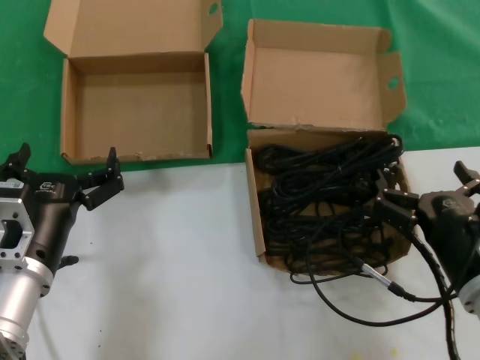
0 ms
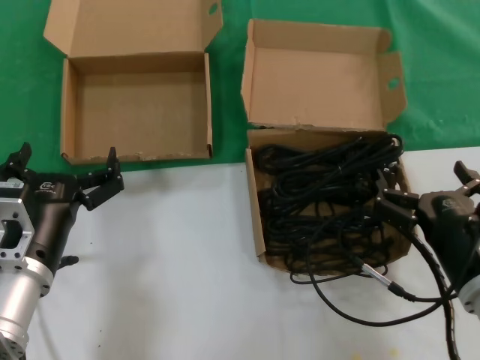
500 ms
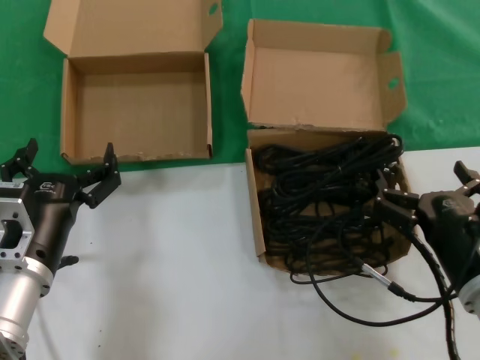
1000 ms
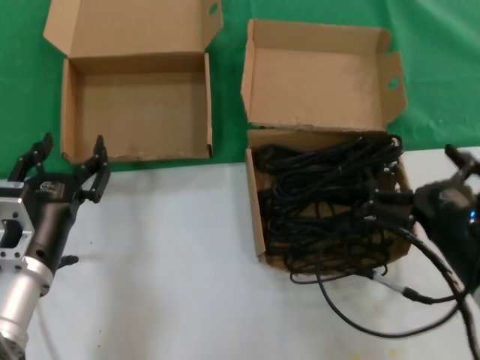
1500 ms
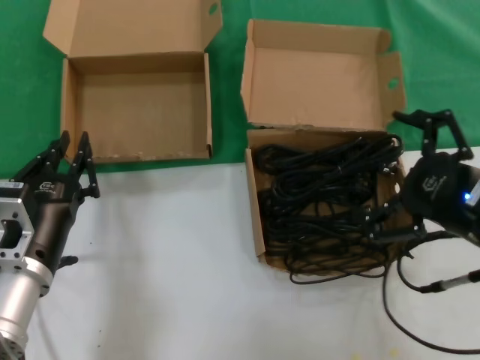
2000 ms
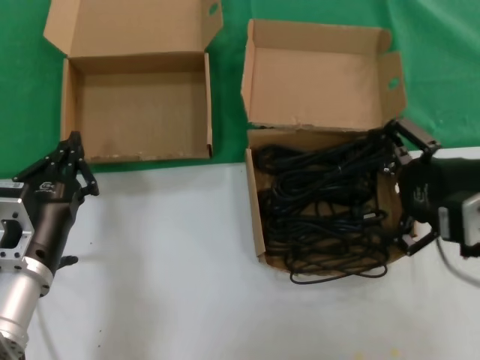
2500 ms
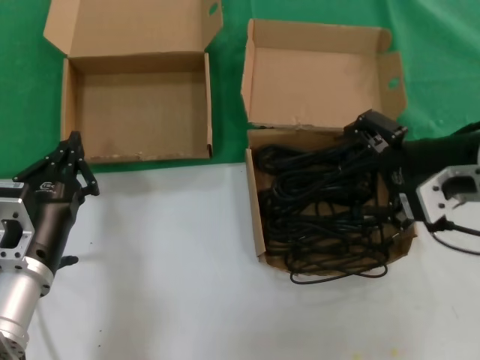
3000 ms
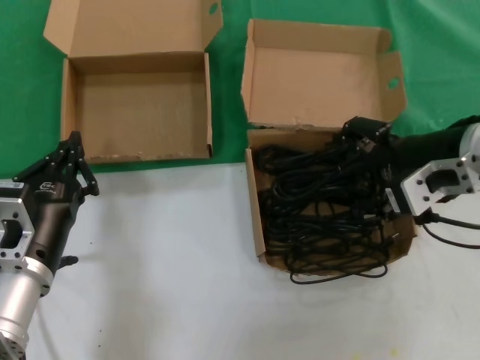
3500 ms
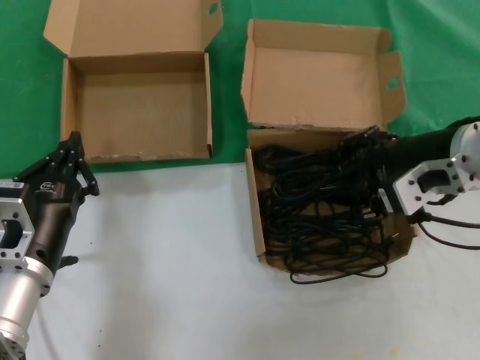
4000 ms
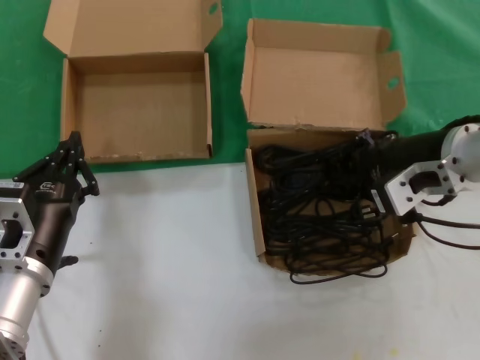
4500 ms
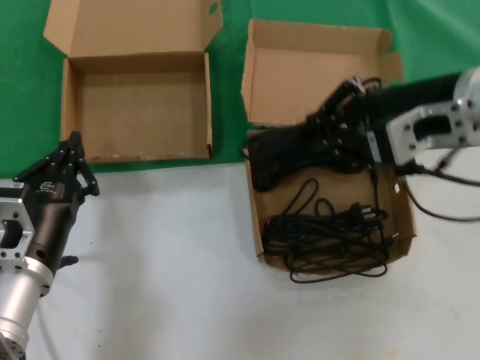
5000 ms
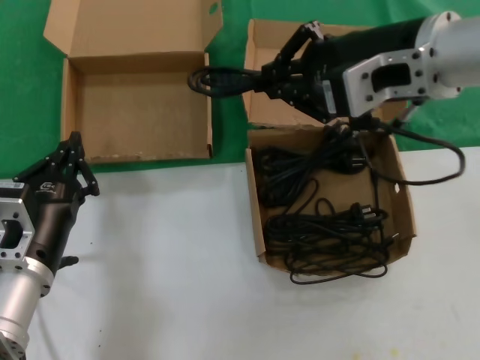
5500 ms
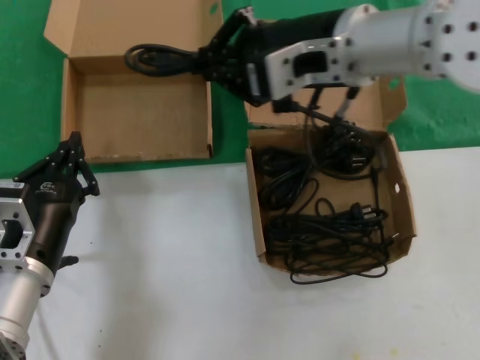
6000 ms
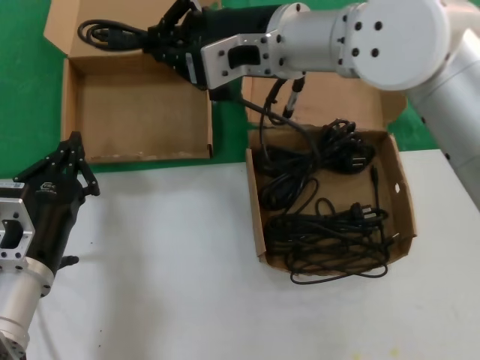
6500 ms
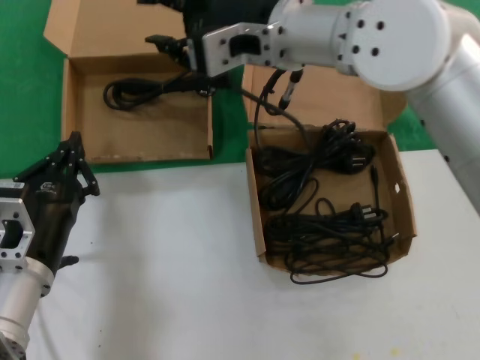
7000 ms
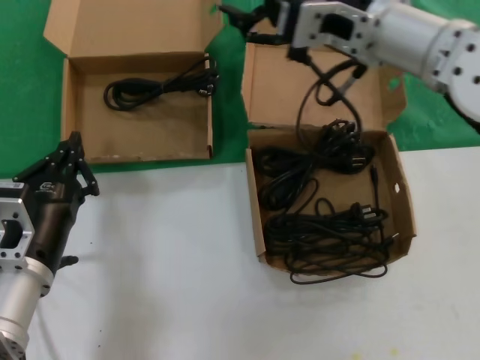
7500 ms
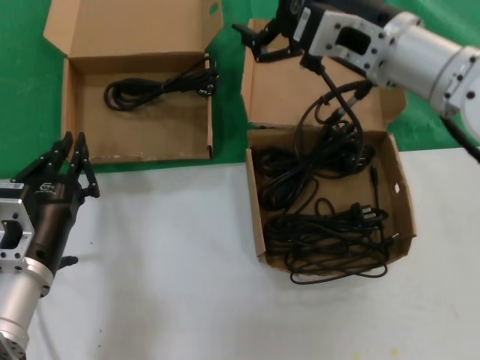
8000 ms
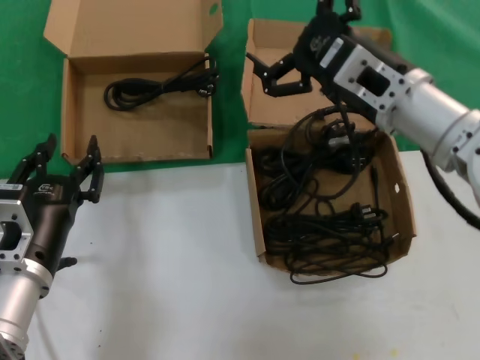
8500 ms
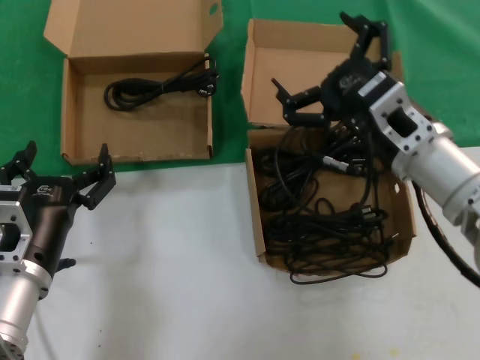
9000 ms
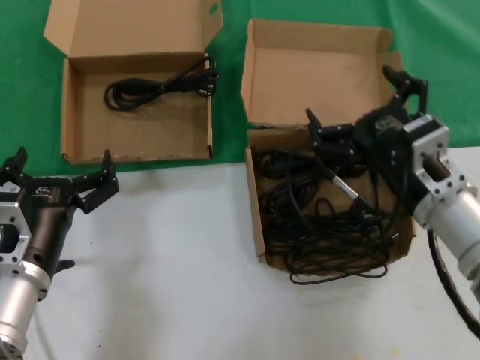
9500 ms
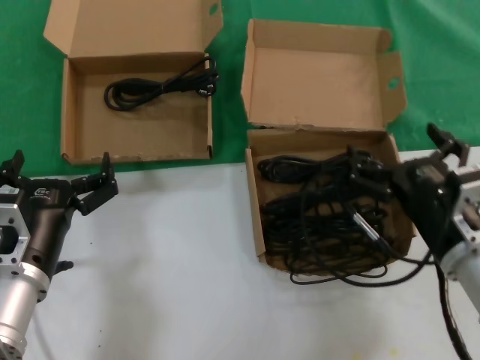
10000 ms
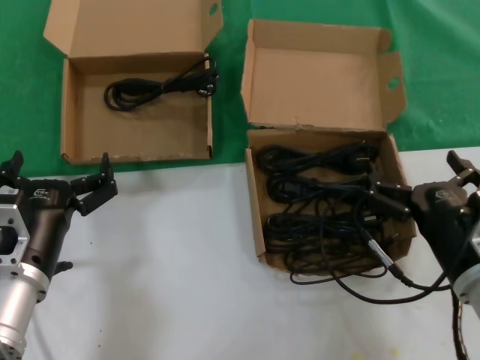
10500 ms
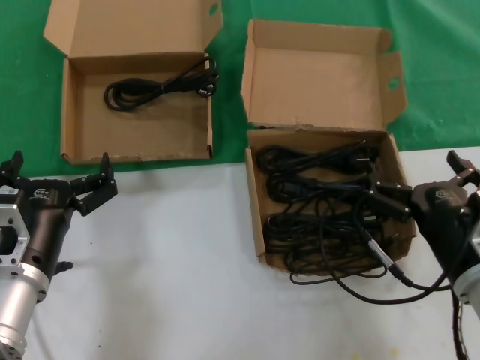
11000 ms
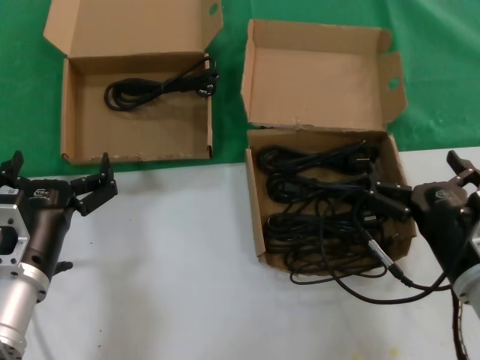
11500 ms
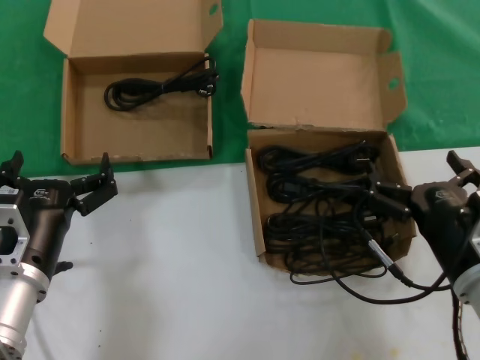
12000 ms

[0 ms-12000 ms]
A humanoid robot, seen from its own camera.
Task of the whole recording: take the parts from the box containing them and put them into an empty box.
Step, 0 ms to 4000 ms: Grasp the data cable.
Step, 4500 ms to 6500 ms: Place the data cable in the another box.
0 ms to 2000 ms: The right hand heads upward, covering approximately 15 cm.
2000 ms to 4000 ms: The right hand travels forward and upward by about 15 cm.
4000 ms to 6000 ms: The right hand goes approximately 15 cm to the left and upward.
6000 ms to 8000 ms: The right hand travels downward by about 5 cm.
8000 ms to 10000 ms: The right hand goes about 25 cm downward and backward.
10000 ms to 12000 ms: There are only small adjustments of the hands.

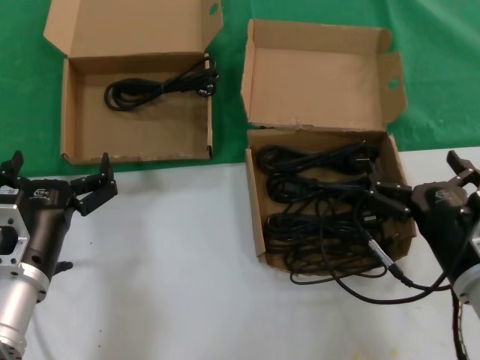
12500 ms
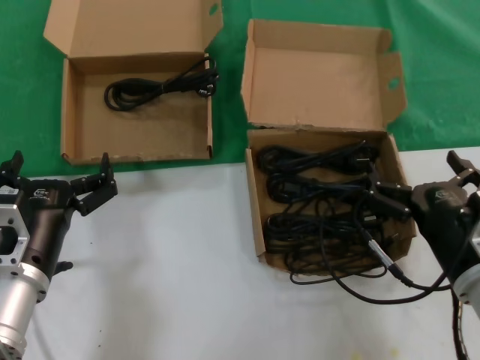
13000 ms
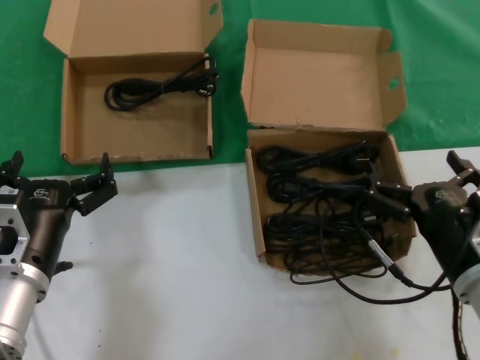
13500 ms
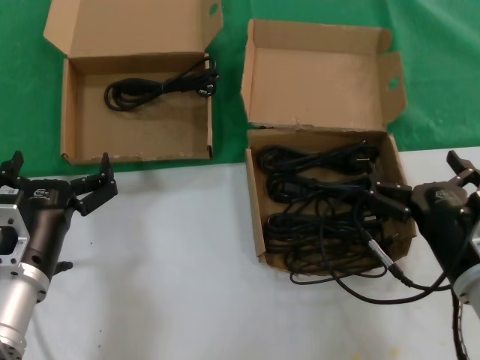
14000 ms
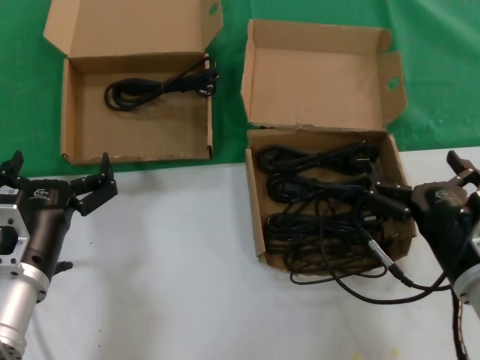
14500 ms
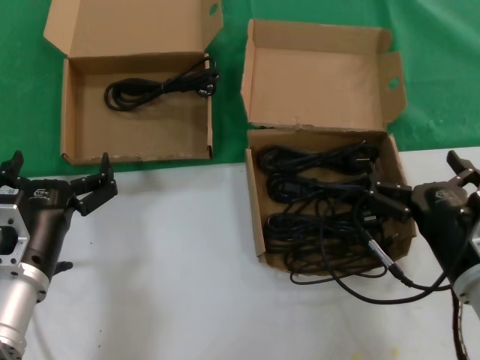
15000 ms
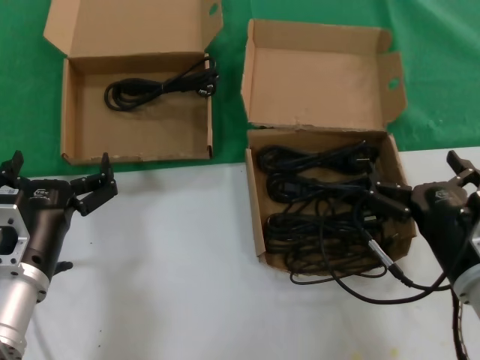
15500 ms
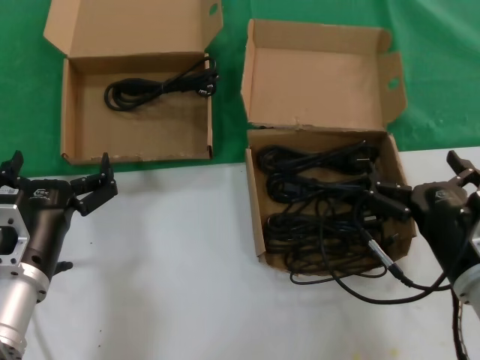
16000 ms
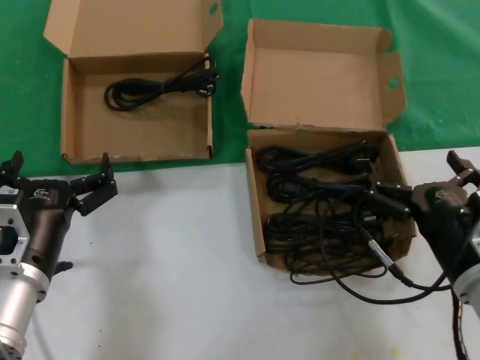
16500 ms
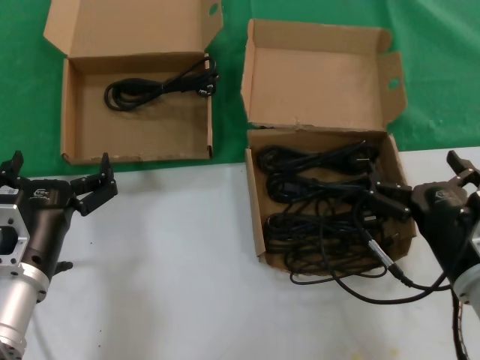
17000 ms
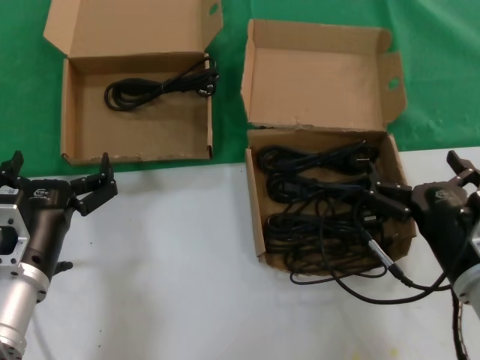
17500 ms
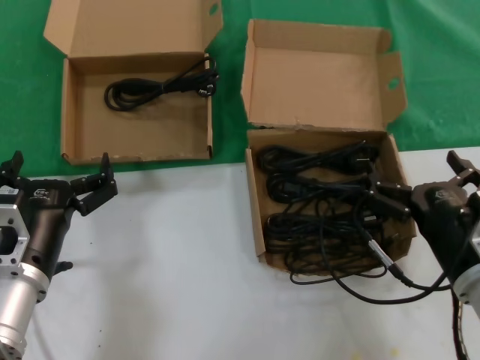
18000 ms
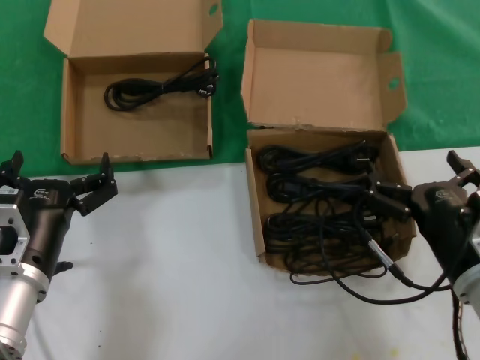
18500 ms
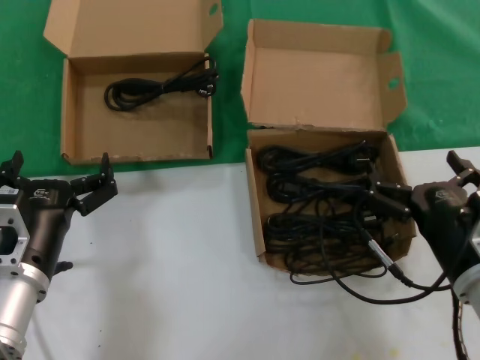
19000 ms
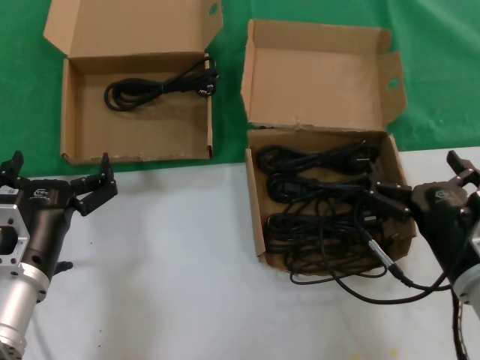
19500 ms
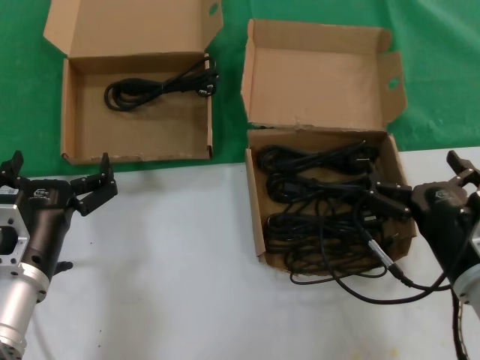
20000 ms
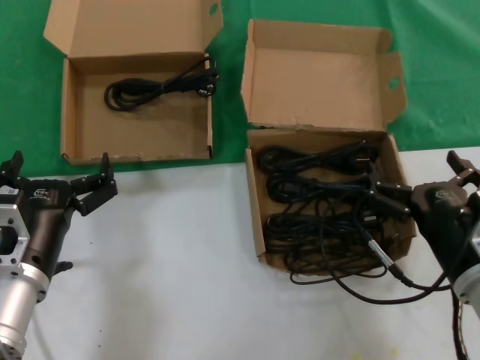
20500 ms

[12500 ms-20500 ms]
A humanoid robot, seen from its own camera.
Task of the whole recording: take the parts from the box containing them and put them into an empty box.
12500 ms to 20500 ms: Both hands stay about where they are.

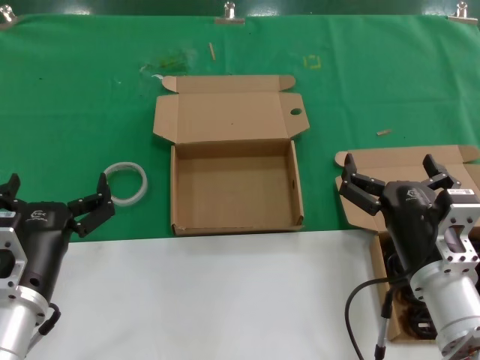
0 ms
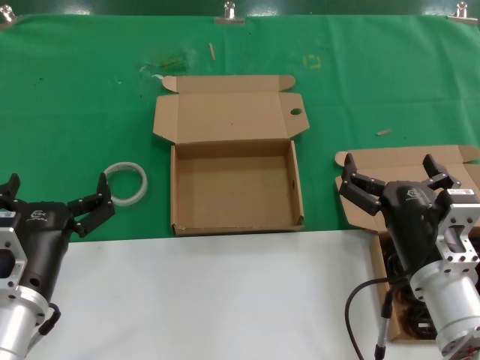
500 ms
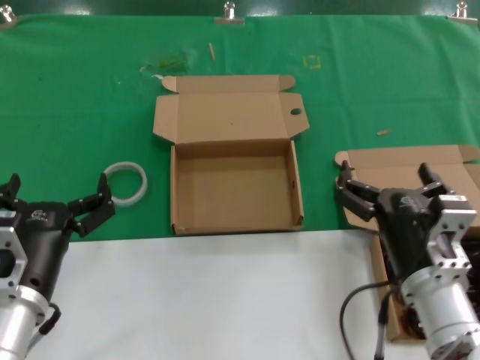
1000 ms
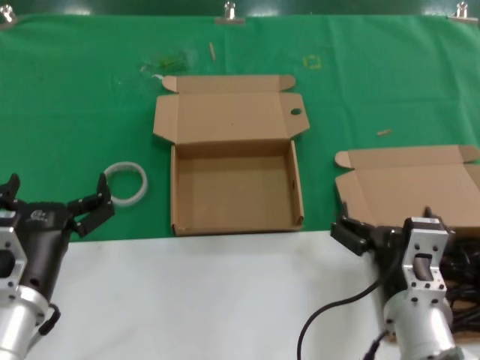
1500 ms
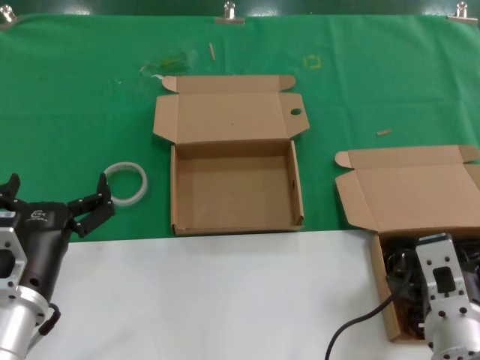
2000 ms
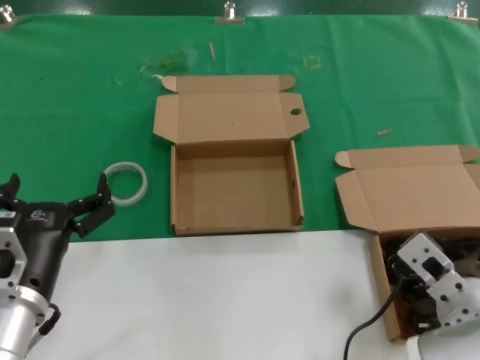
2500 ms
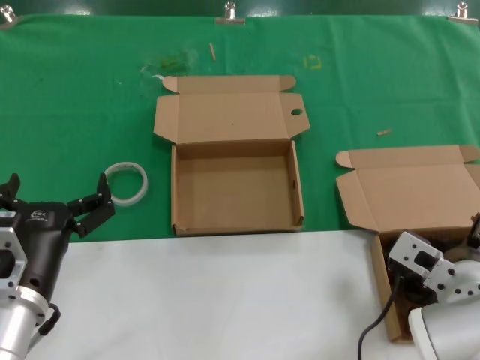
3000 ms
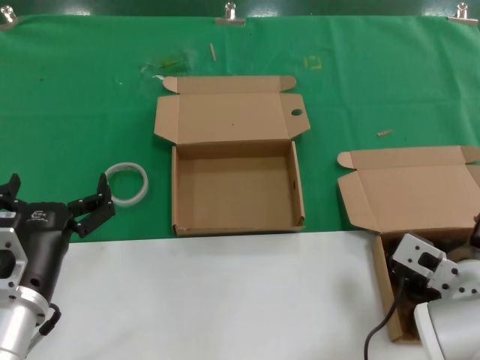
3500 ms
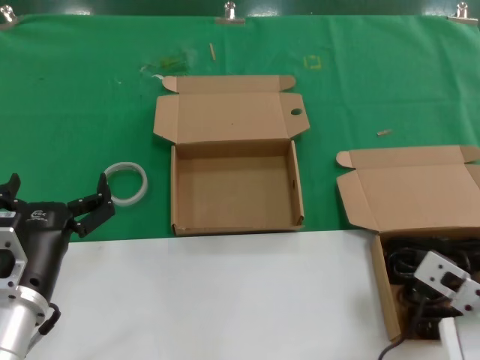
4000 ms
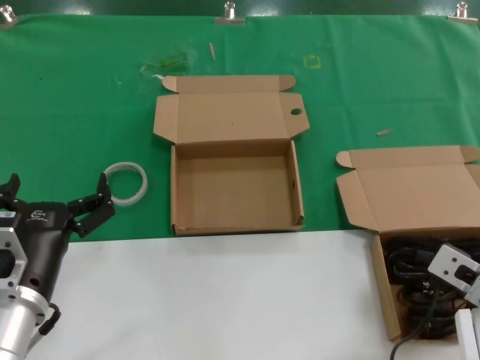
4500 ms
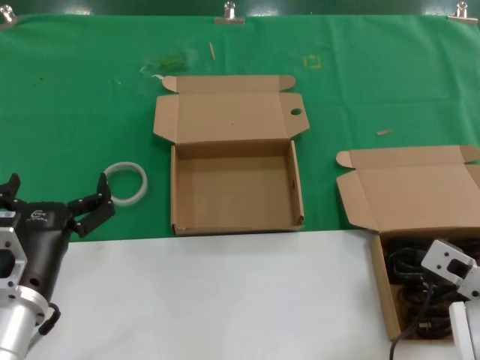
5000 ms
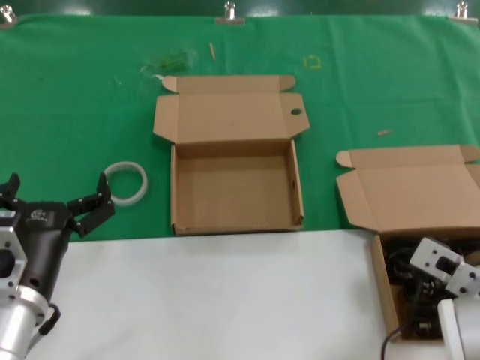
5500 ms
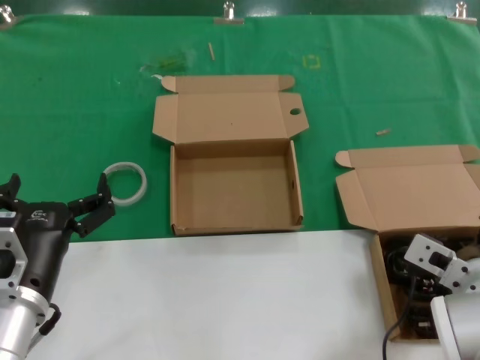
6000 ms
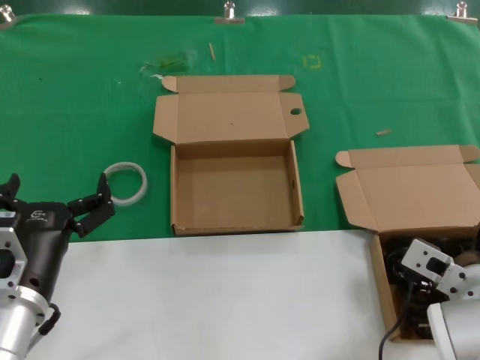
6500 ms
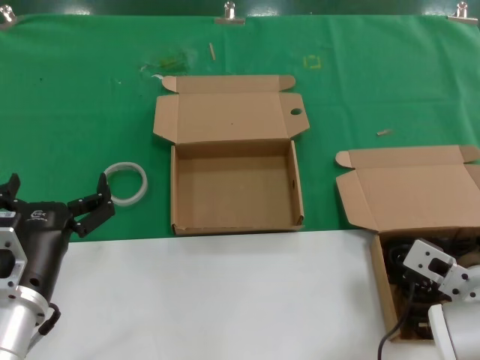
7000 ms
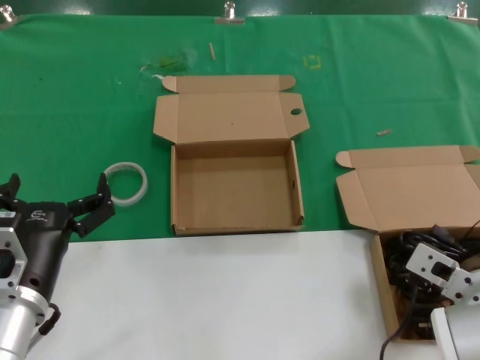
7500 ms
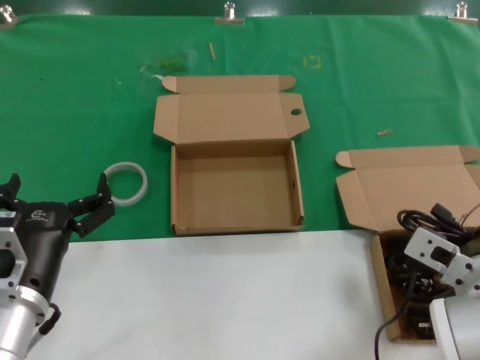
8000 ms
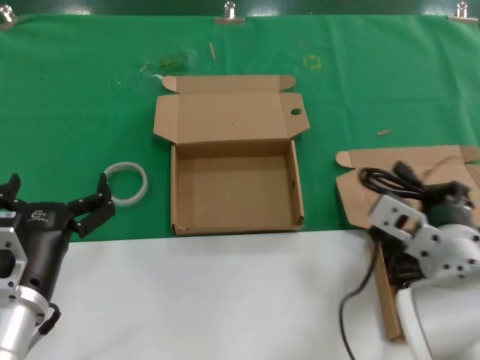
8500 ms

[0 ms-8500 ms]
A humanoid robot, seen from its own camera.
Task of the whole recording: take the parts from the box containing them and put them into an empty box.
Step, 0 ms to 7500 ms: Grasp the data cable.
0 ms to 2000 ms: The right hand shifts by roughly 5 cm.
2000 ms to 4000 ms: The right hand goes about 5 cm to the right.
4000 ms to 6500 ms: There are only small adjustments of the hands.
6500 ms to 8500 ms: The right hand travels upward and to the left by roughly 10 cm.
